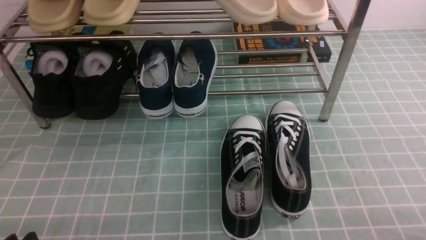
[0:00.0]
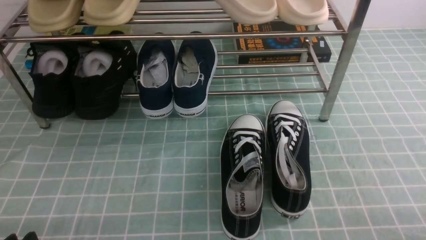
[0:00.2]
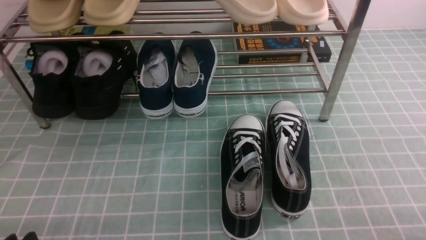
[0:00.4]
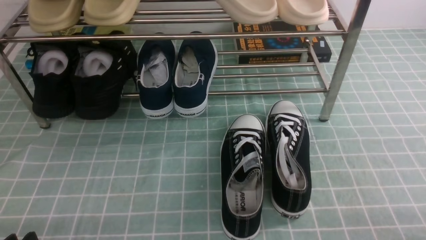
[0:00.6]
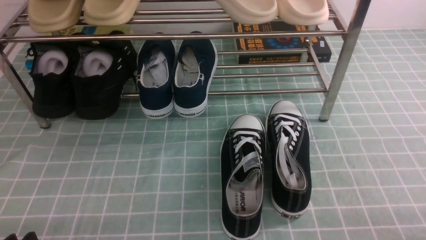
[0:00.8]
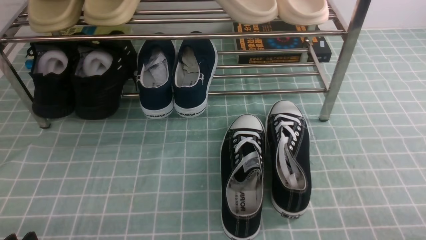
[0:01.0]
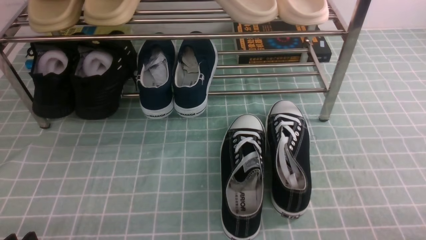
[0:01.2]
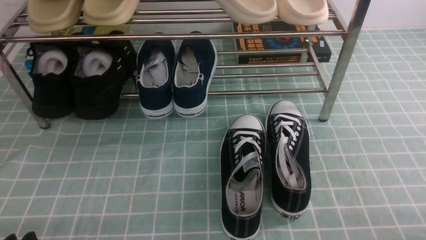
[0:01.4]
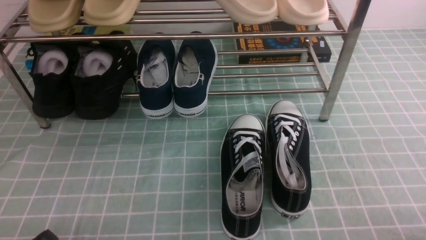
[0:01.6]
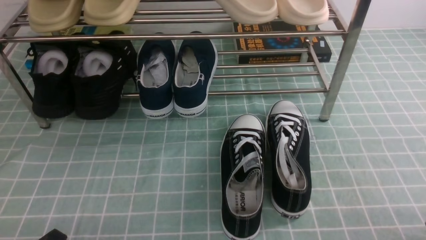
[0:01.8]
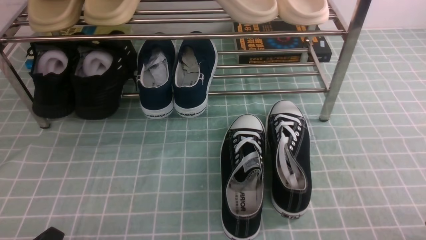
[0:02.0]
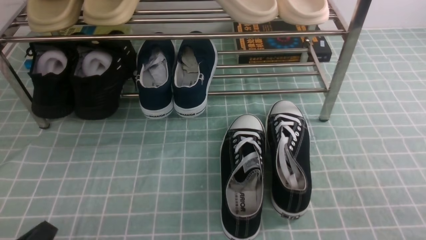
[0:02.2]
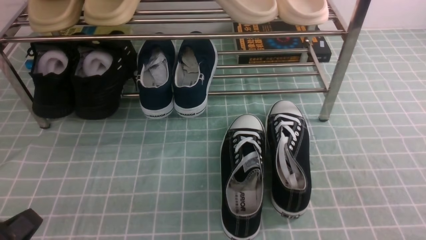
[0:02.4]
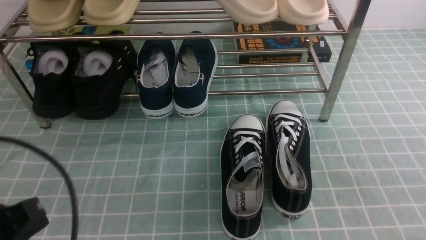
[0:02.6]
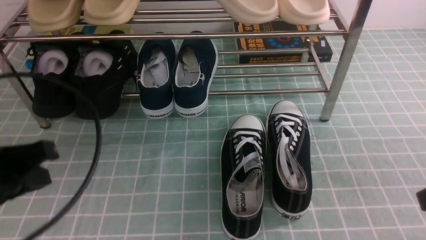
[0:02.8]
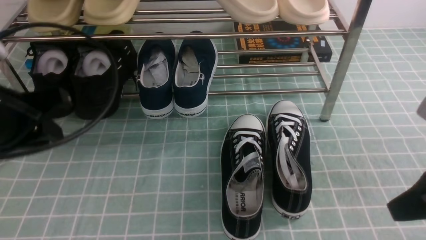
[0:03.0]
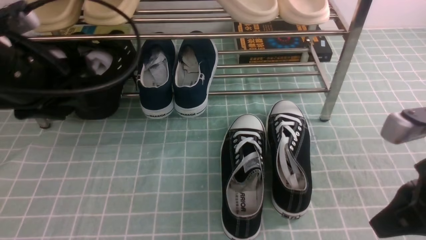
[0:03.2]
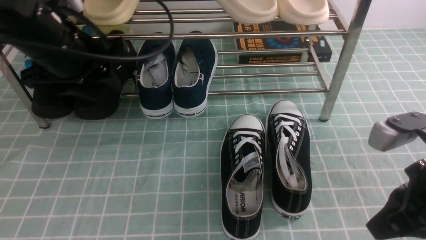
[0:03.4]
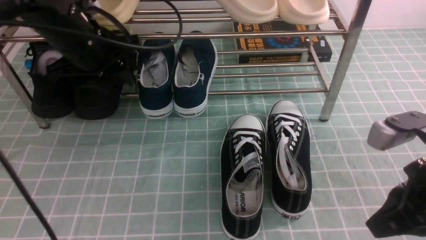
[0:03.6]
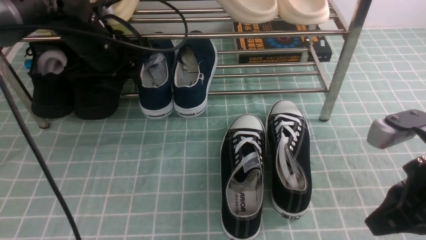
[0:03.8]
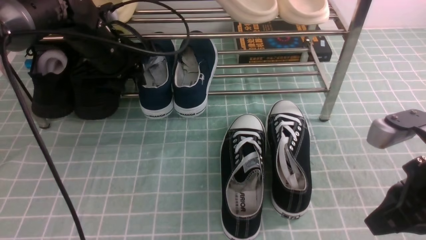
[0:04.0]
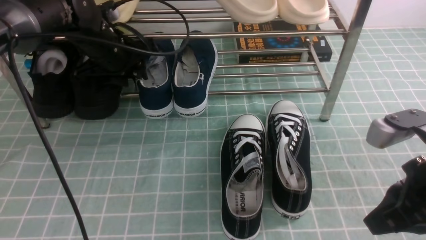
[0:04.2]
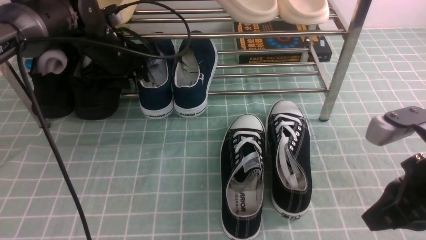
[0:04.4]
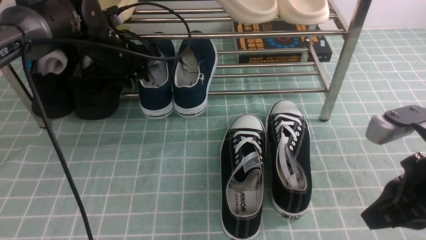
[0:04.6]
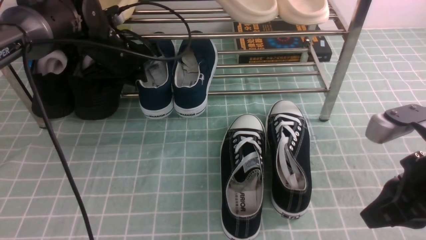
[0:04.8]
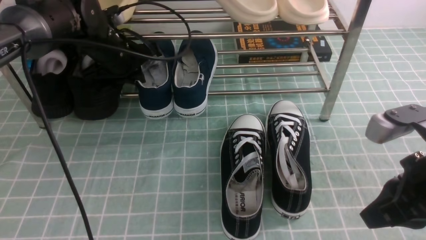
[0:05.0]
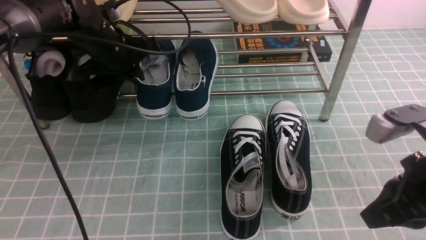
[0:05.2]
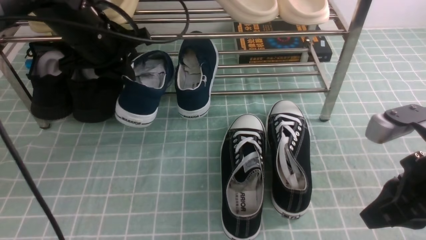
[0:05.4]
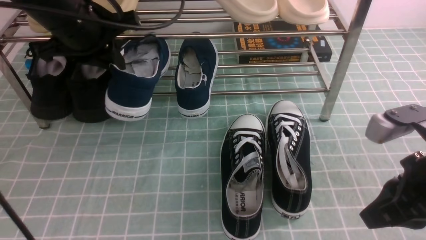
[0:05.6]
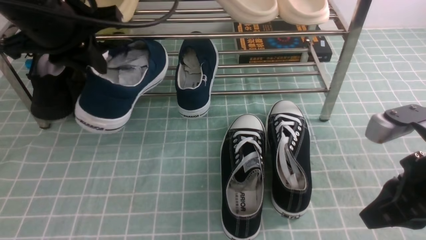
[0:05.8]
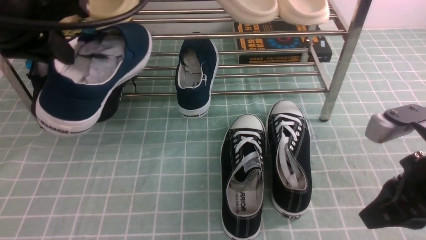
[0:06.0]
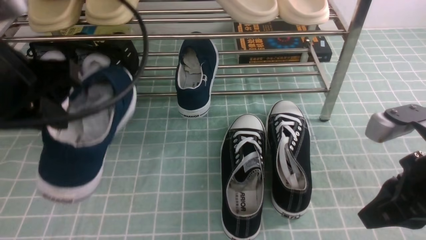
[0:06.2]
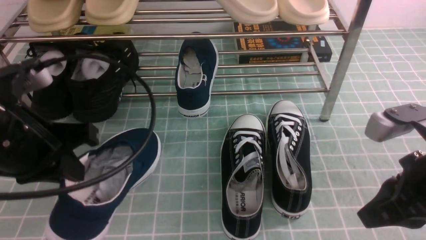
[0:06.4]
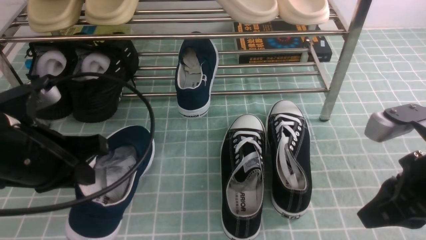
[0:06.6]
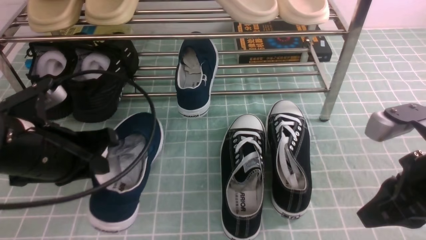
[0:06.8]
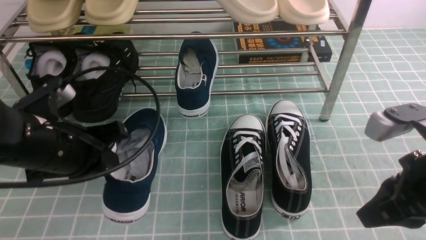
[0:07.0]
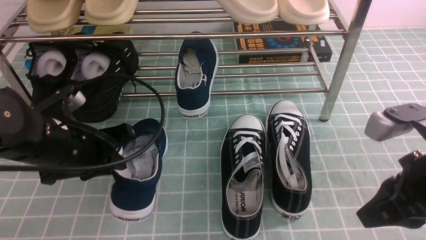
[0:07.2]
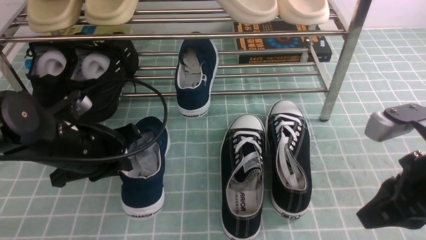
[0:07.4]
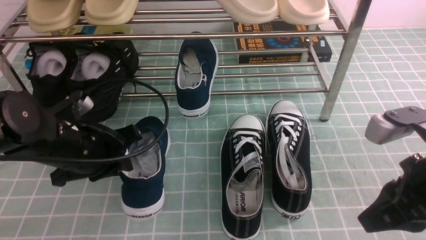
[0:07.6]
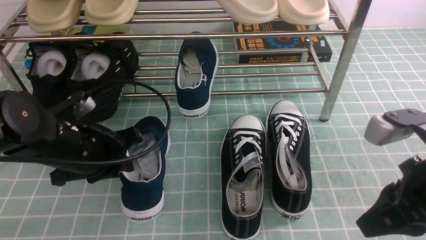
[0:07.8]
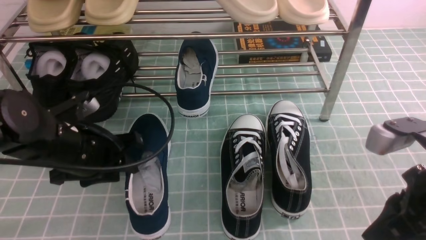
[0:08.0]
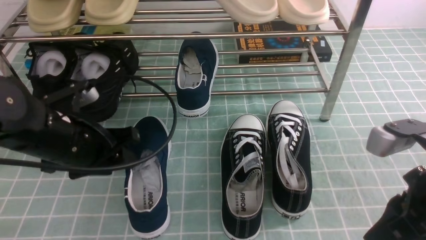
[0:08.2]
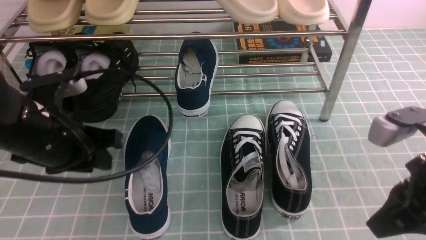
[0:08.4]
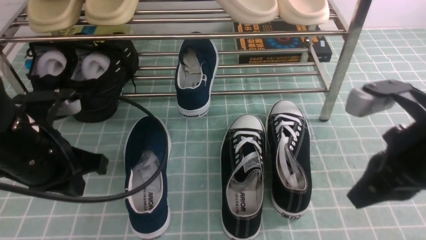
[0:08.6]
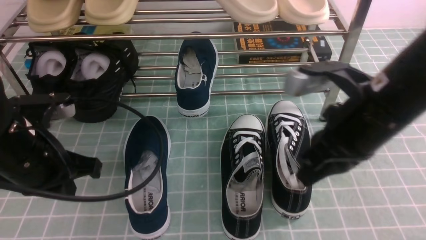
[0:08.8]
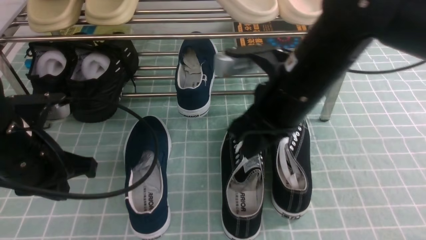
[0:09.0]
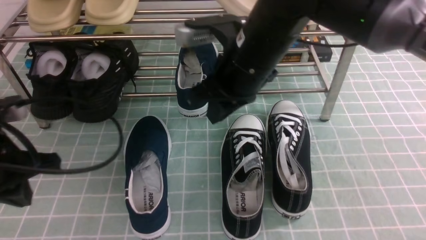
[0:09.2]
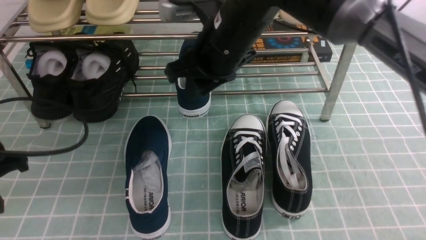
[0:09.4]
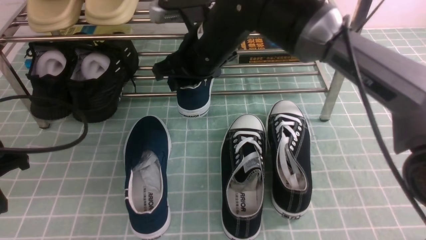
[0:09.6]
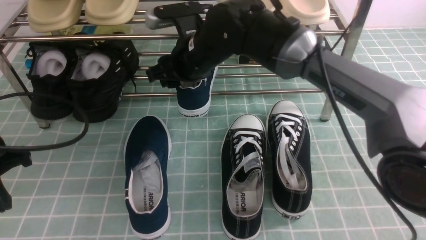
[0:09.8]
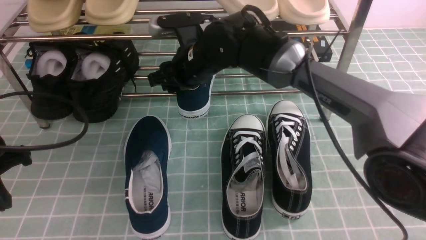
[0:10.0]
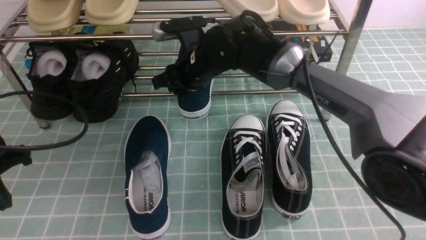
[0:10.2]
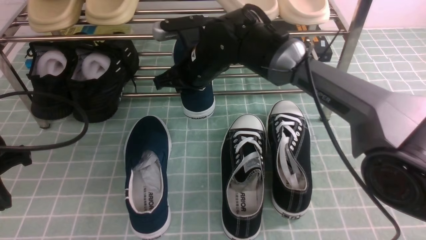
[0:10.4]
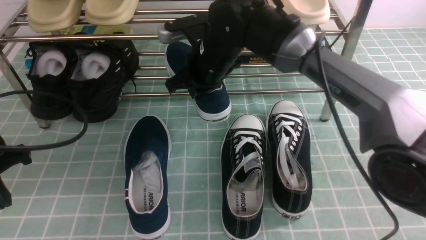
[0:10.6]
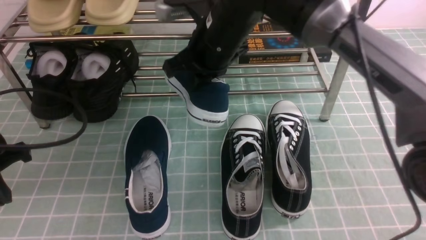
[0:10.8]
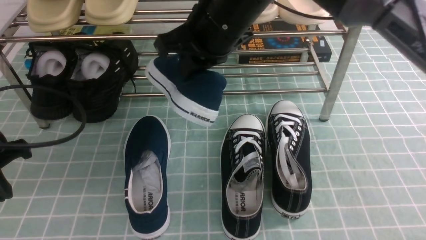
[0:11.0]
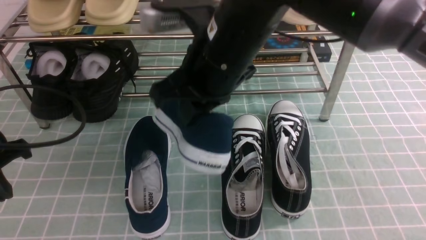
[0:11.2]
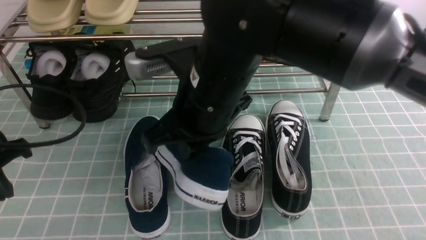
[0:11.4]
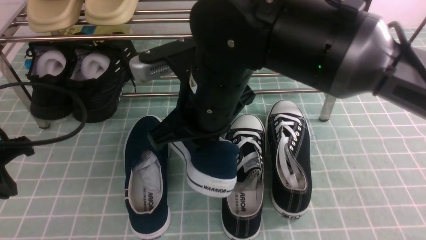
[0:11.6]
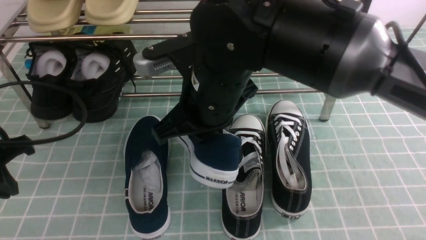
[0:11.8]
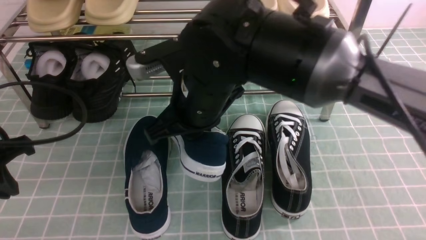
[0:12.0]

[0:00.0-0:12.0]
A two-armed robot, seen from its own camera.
Step, 0:00.0 to 0:05.2: use the left arm to clamp a shoe in the middle of the shoe rack.
Step, 0:05.4 to 0:08.2: Use your left arm to remove the clamped shoe from the shoe rack and put it down.
Step, 0:08.4 to 0:10.2: use the right arm to clamp a shoe in the middle of the shoe rack.
0:01.6 to 0:03.0: Both grippers move upward and forward, some 20 cm. The left gripper closes and opens again, while the right gripper closes its fingers.
0:03.0 to 0:04.4: The left gripper travels forward by about 20 cm, and opens up.
0:04.4 to 0:06.0: The left gripper is displaced backward and upward by some 25 cm, and closes its fingers.
0:06.0 to 0:07.6: The left gripper shifts roughly 20 cm downward.
0:07.6 to 0:09.0: The right gripper travels to the left and forward by about 20 cm. The left gripper changes place by roughly 10 cm, and opens and closes again.
0:09.0 to 0:10.4: The left gripper is displaced to the left by approximately 5 cm, while the right gripper goes roughly 20 cm forward, to the left and downward, and opens, then closes again.
0:10.4 to 0:12.0: The right gripper heads backward, covering some 15 cm.

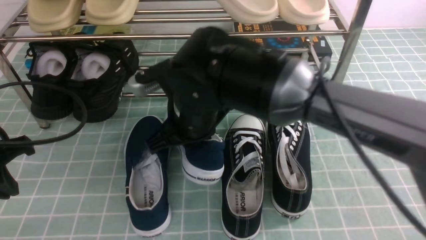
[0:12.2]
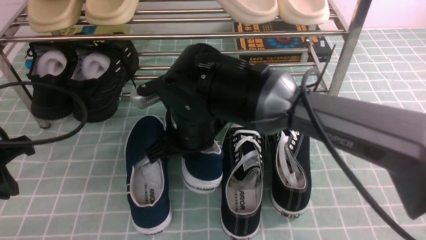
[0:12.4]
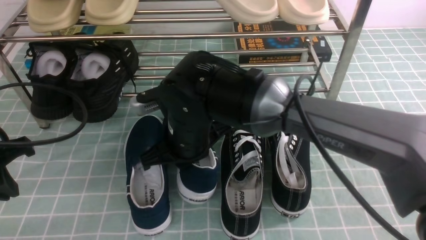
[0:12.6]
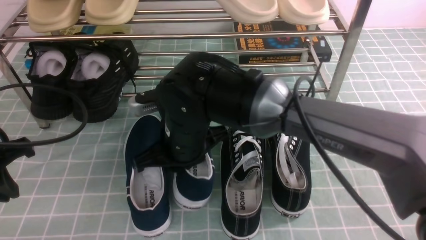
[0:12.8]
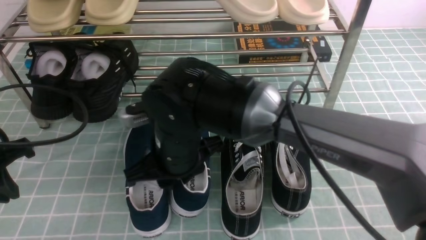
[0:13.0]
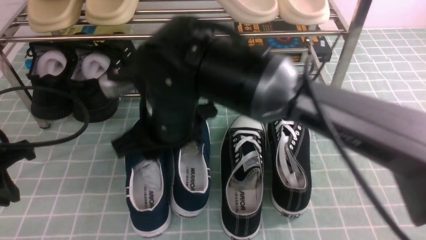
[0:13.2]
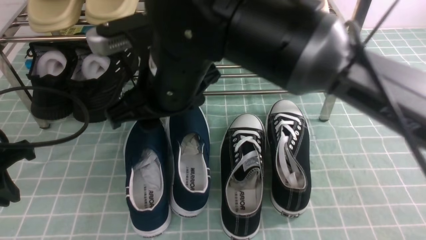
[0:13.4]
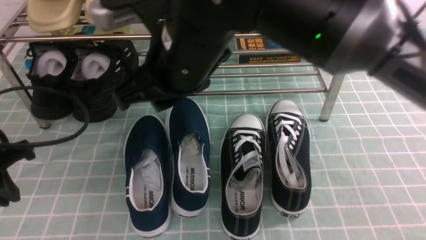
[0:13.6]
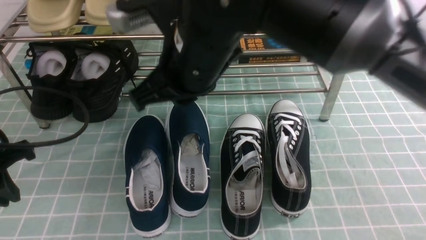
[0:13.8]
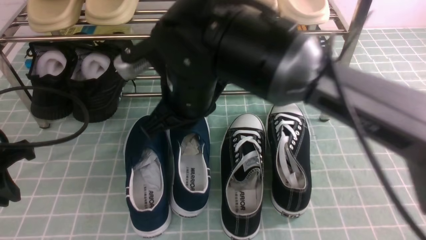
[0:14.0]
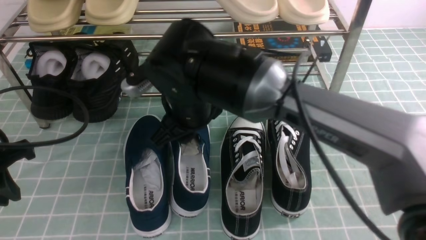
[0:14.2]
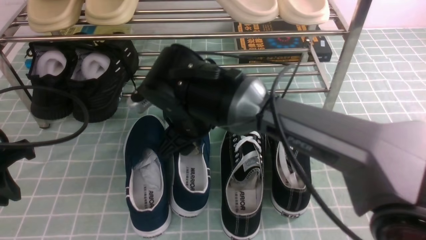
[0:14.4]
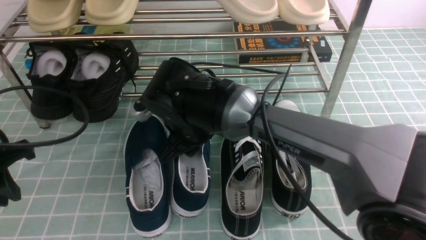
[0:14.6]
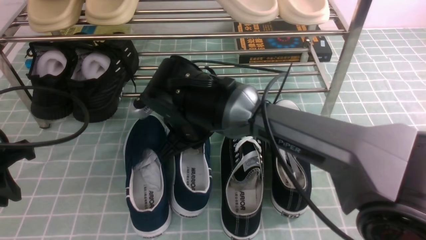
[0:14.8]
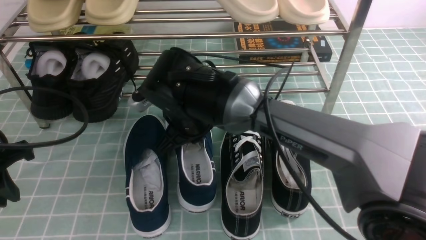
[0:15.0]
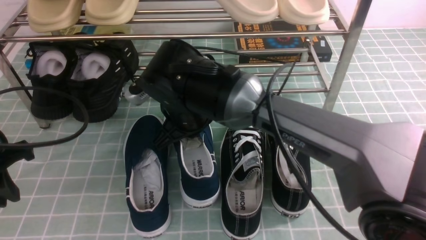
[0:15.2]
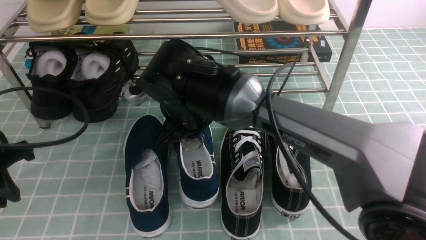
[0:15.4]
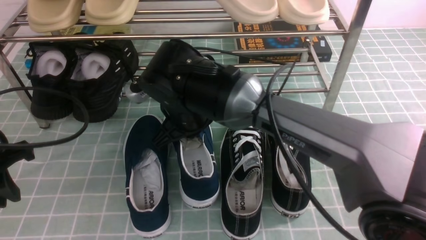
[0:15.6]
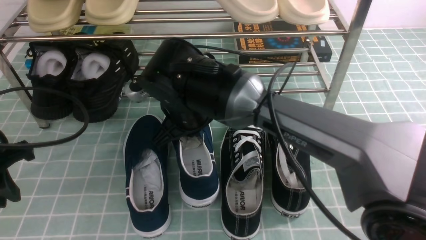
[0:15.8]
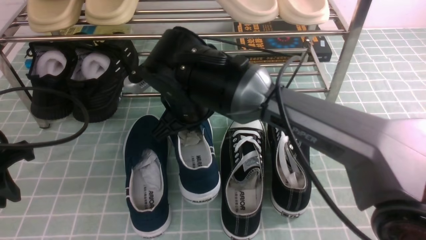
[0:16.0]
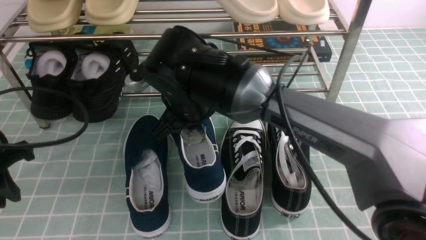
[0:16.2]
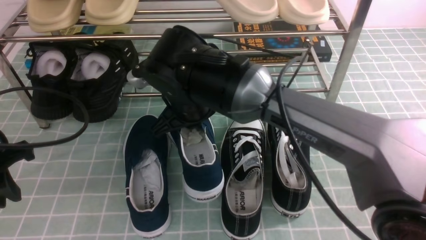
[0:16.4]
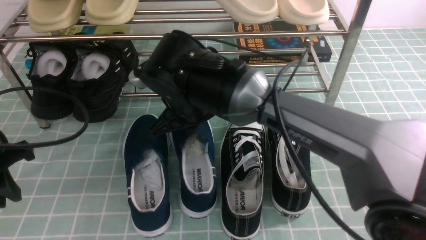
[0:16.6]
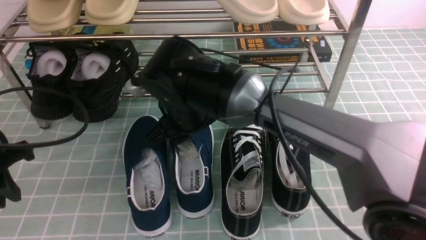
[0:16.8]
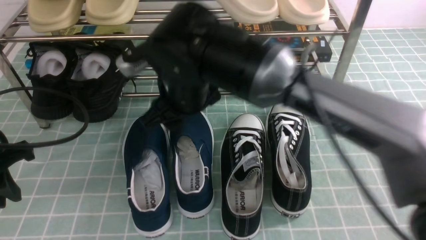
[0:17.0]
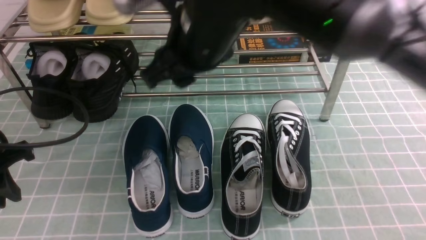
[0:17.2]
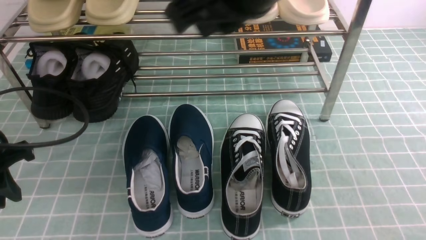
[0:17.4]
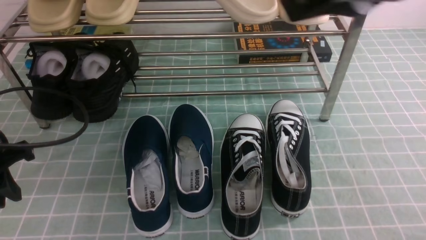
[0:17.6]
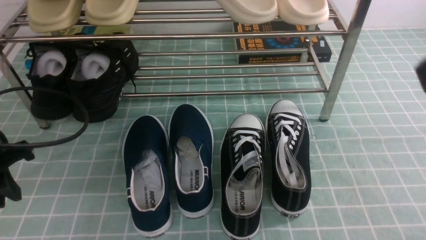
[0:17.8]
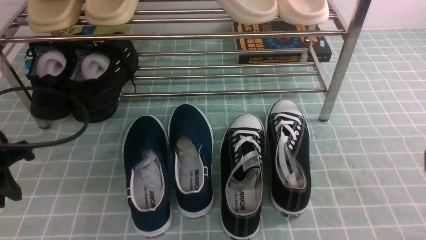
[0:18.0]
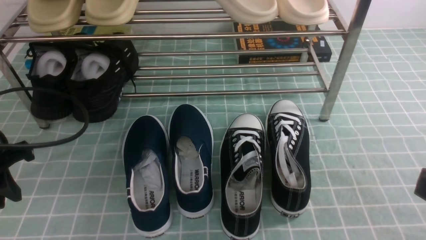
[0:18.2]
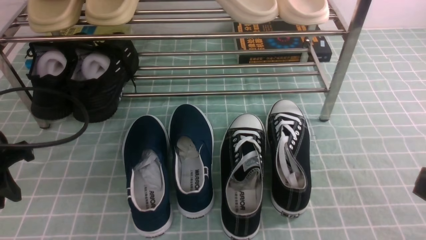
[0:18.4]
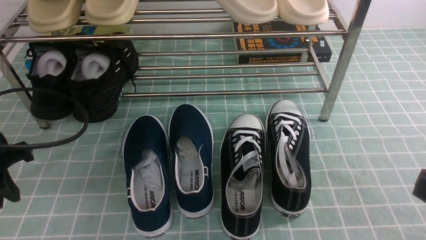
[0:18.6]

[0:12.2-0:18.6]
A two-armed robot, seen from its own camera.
0:12.2 to 0:13.8: The right gripper is displaced upward by approximately 10 cm, and opens and closes again.
0:13.8 to 0:15.4: The right gripper is displaced downward and forward by some 10 cm, and opens, then closes again.
0:15.4 to 0:17.0: The right gripper moves upward, roughly 10 cm, and opens its fingers.
0:17.0 to 0:18.6: The right gripper moves to the right and backward, roughly 40 cm, and closes.
